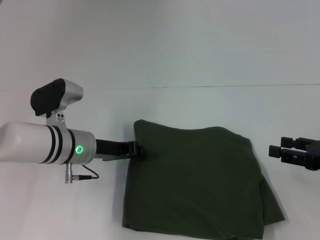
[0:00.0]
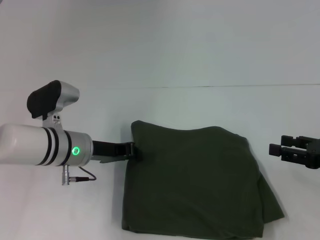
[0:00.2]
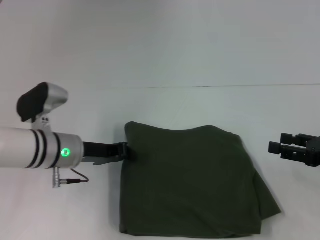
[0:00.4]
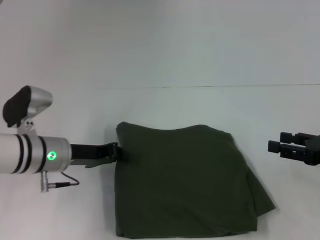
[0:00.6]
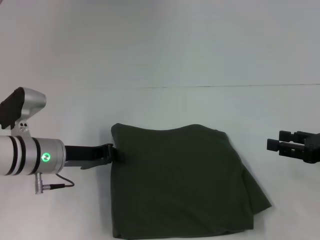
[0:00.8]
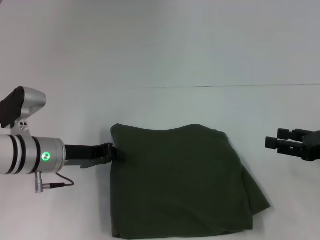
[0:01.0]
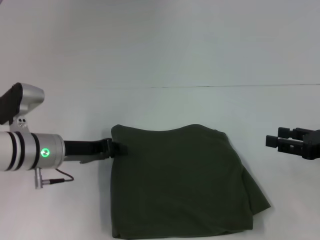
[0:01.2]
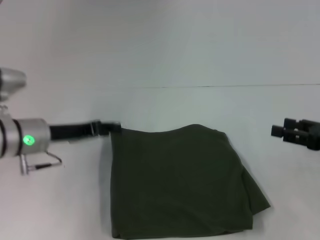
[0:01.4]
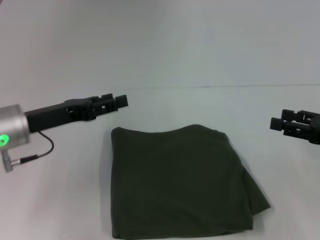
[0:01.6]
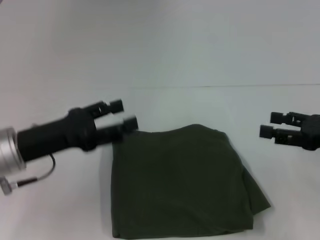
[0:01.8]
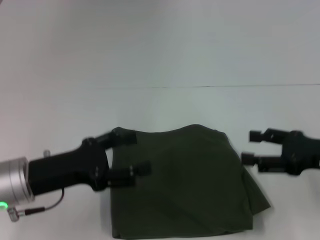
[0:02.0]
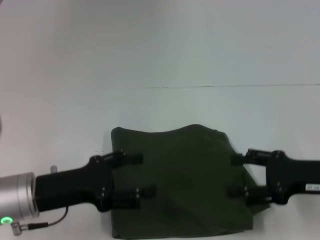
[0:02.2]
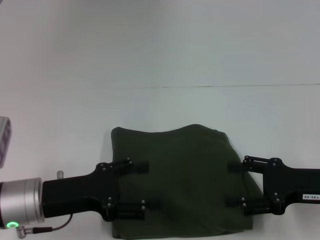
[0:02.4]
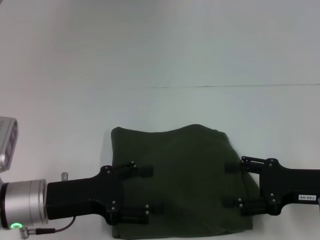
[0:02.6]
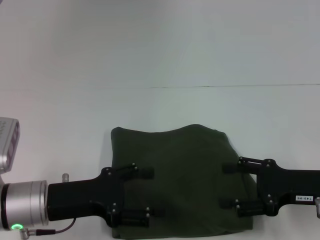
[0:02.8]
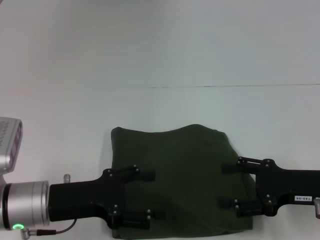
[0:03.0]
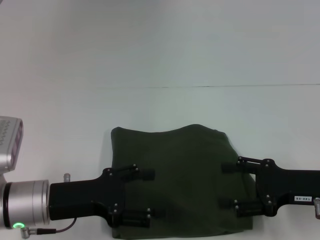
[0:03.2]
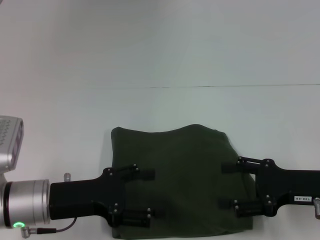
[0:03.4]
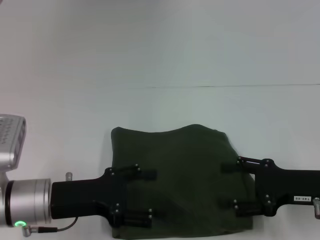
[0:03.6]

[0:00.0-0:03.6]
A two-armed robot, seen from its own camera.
0:00.0 to 0:01.8: The left gripper goes about 10 cm backward, to the left and upward.
0:01.8 to 0:03.6: The left gripper ends up roughly 5 cm from where it was; the right gripper is displaced to the left by some 5 cm.

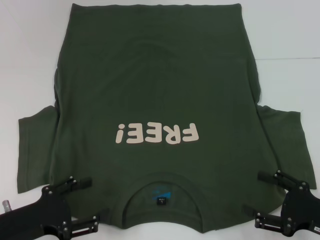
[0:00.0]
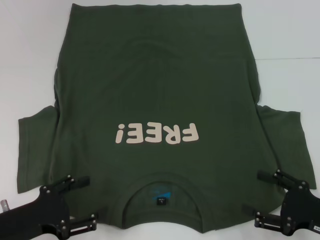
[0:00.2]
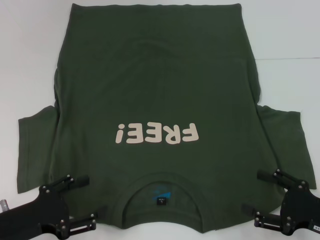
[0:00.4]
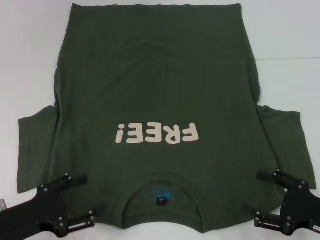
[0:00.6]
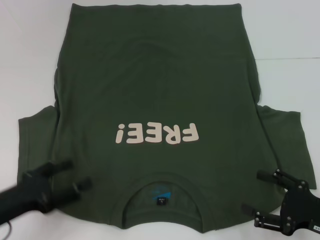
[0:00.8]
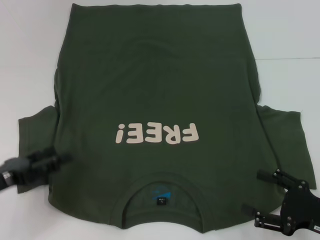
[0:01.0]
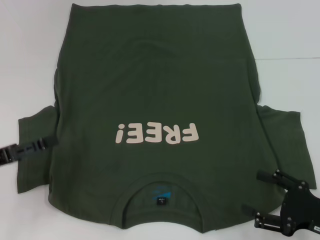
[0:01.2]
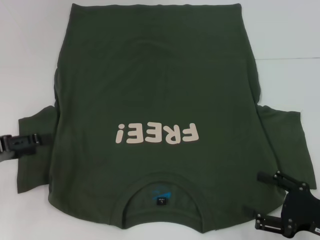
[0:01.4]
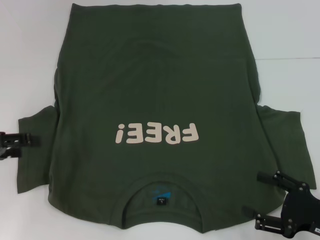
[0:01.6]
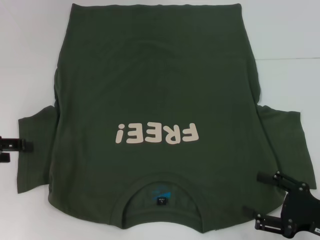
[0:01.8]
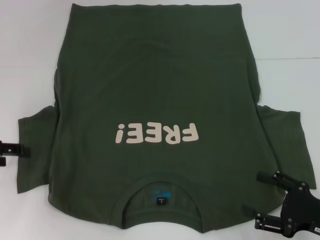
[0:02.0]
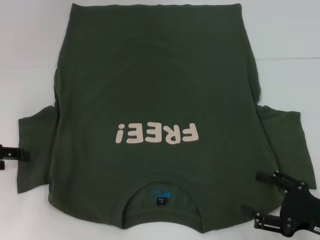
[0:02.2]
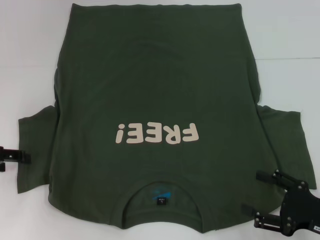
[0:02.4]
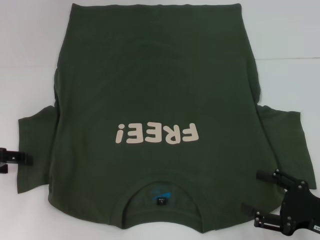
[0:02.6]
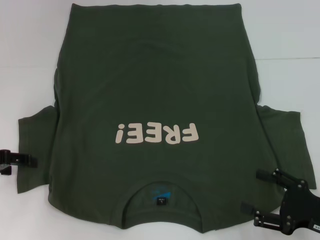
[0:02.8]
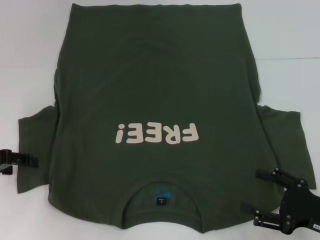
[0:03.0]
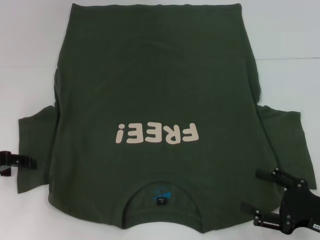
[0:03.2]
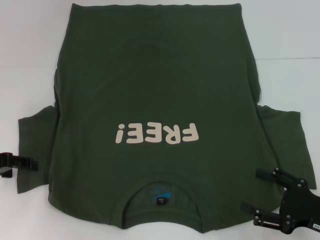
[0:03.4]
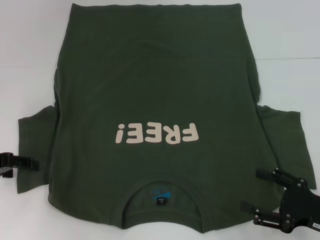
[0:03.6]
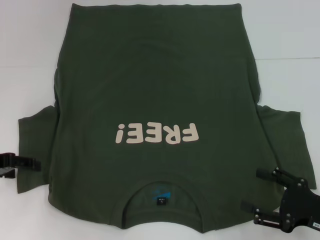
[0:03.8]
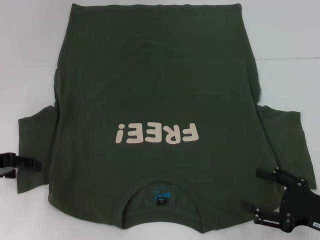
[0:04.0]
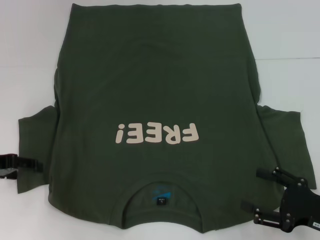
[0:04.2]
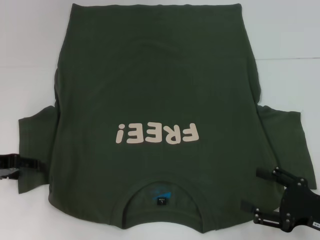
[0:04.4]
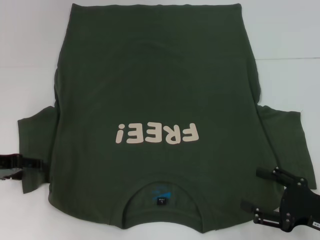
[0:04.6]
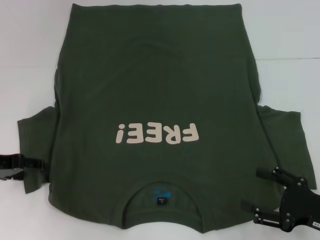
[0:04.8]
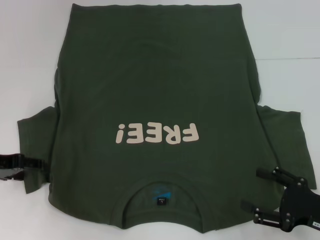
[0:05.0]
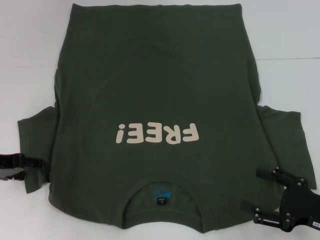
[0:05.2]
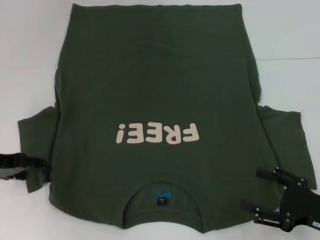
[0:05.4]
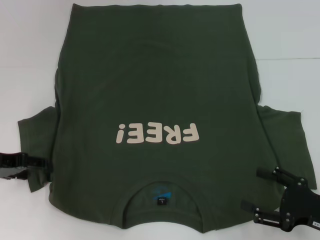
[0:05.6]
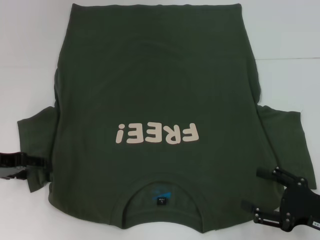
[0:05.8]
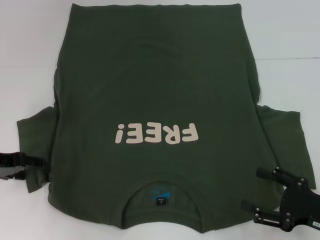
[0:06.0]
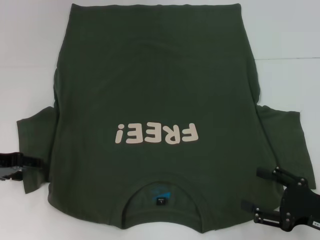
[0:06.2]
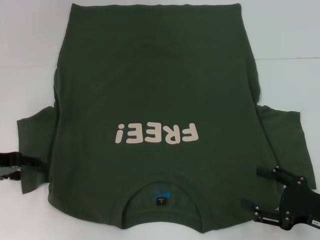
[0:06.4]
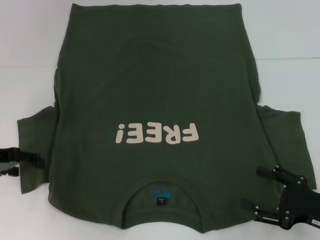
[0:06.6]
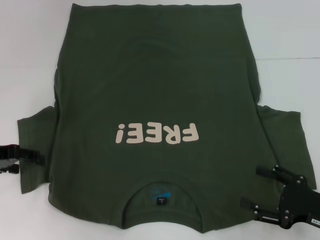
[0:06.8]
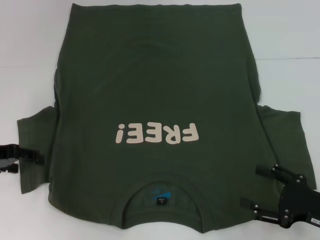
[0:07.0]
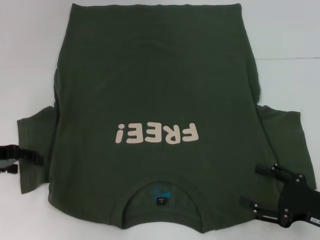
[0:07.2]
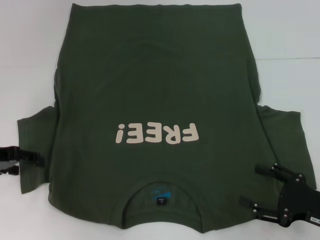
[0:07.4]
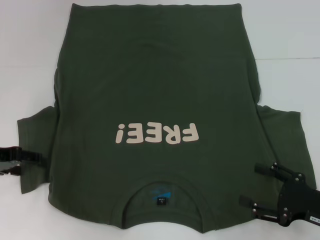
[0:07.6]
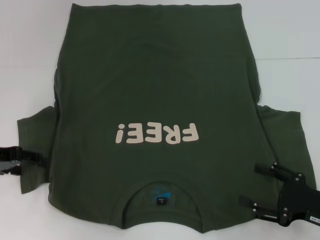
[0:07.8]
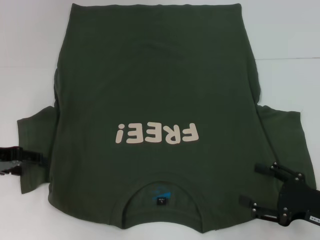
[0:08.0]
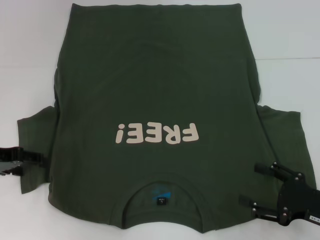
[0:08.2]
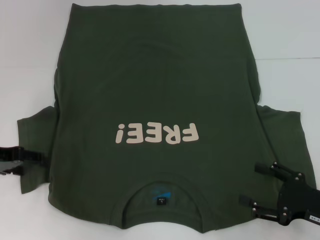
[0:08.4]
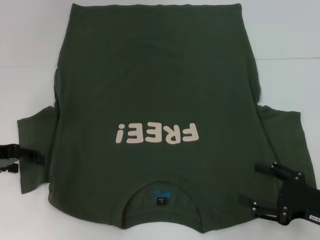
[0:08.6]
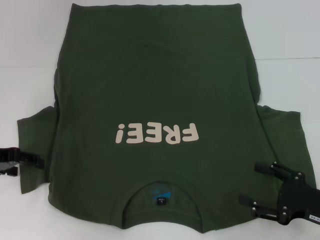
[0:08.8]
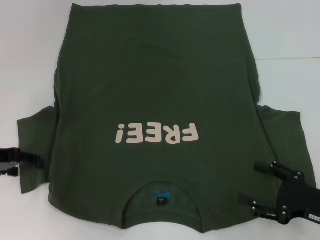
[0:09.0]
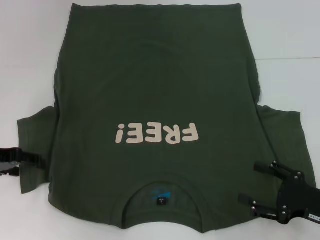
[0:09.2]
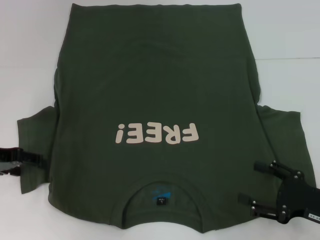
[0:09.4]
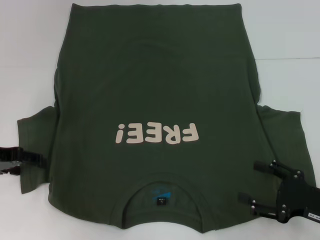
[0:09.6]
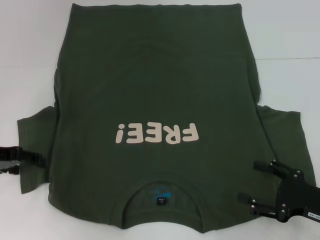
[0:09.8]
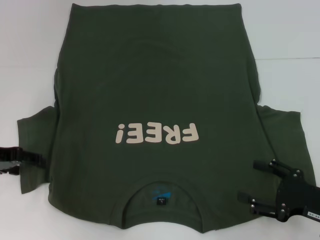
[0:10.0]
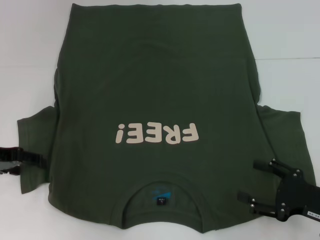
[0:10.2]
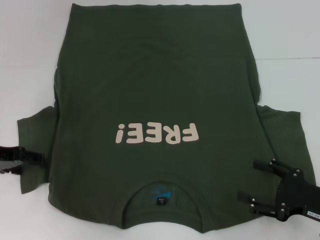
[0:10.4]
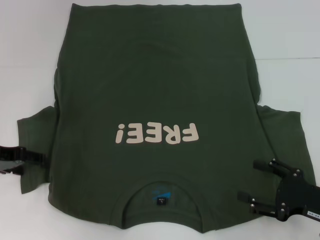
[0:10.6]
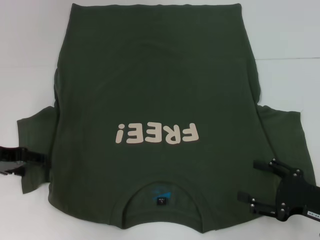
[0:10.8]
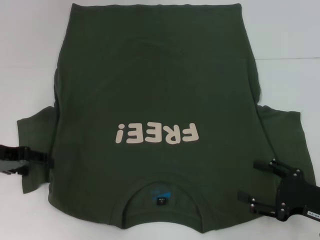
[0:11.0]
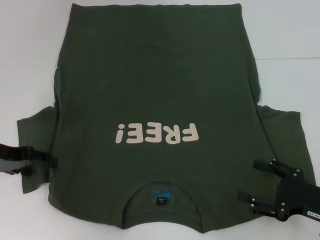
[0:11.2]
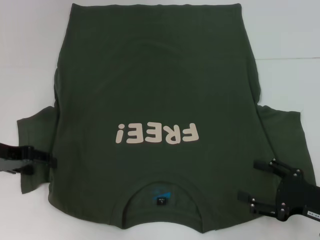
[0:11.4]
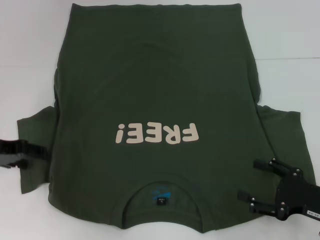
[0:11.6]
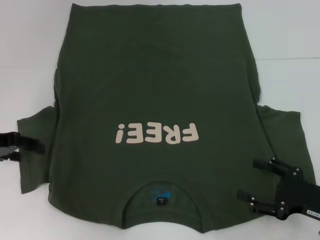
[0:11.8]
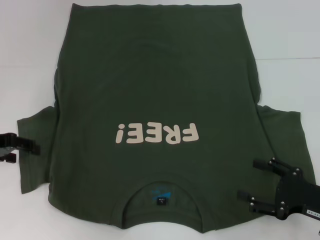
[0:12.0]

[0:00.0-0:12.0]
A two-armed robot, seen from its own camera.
0:00.0 to 0:01.6: The left gripper heads forward, upward and to the left, covering about 15 cm.
0:01.6 to 0:03.0: The grippers move only a little.
0:03.0 to 0:04.4: Both grippers stay put.
0:04.4 to 0:06.0: Both grippers stay about where they are.
0:06.0 to 0:07.6: There are only small adjustments of the grippers.
0:07.6 to 0:10.4: Neither gripper changes place.
0:10.4 to 0:12.0: The grippers move only a little.

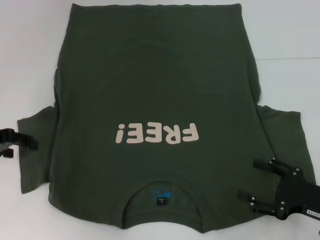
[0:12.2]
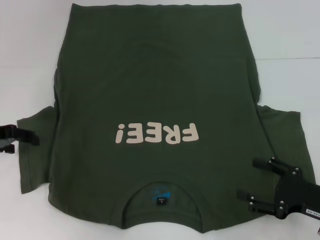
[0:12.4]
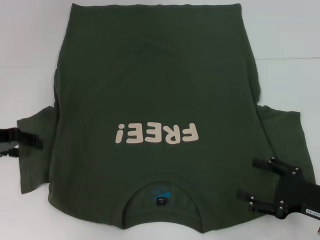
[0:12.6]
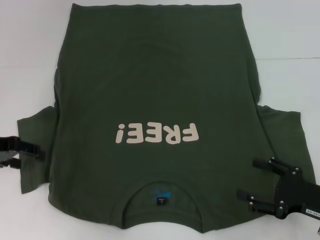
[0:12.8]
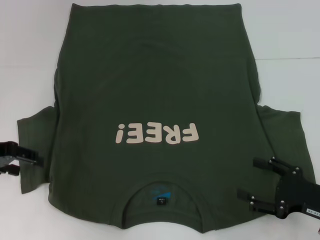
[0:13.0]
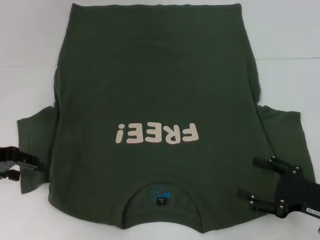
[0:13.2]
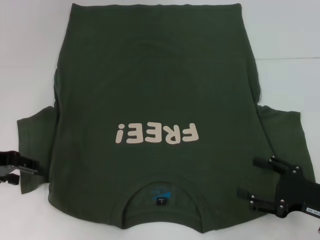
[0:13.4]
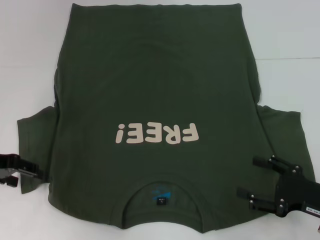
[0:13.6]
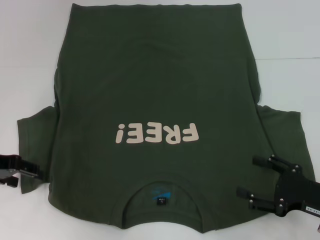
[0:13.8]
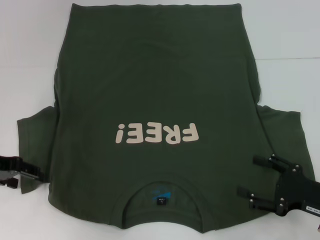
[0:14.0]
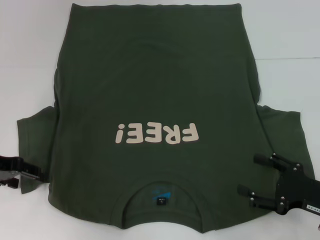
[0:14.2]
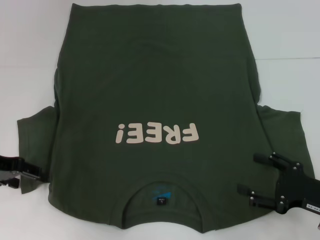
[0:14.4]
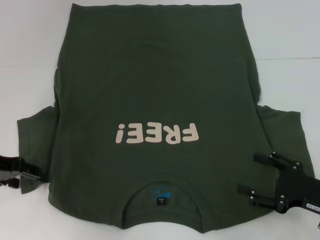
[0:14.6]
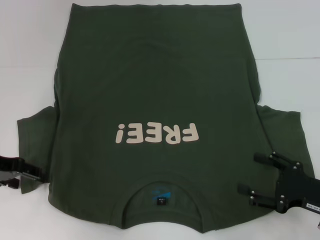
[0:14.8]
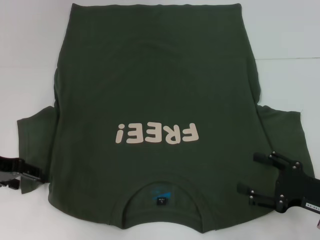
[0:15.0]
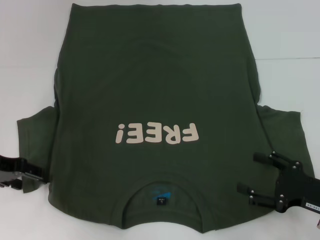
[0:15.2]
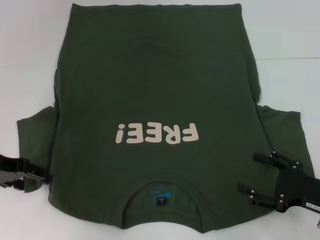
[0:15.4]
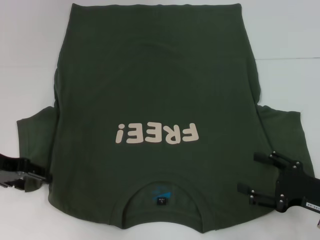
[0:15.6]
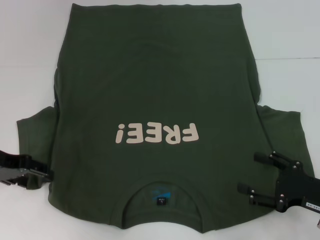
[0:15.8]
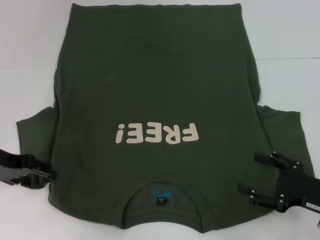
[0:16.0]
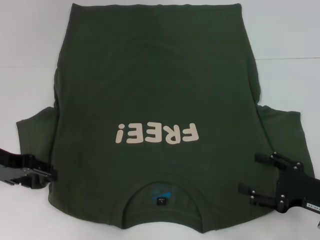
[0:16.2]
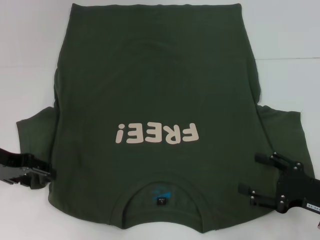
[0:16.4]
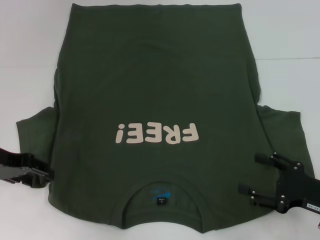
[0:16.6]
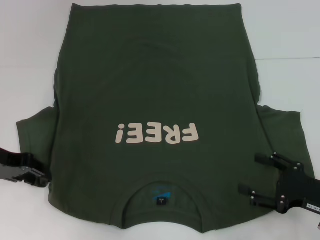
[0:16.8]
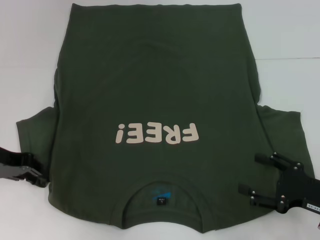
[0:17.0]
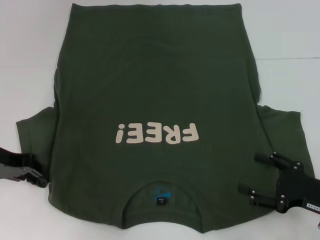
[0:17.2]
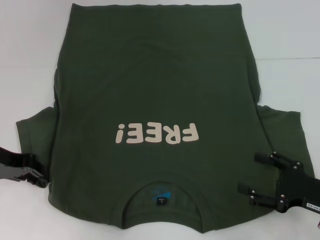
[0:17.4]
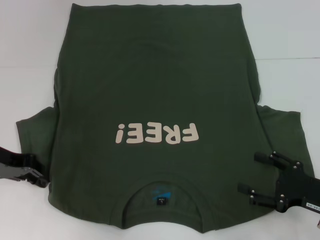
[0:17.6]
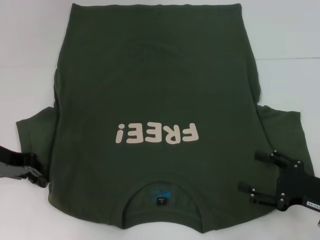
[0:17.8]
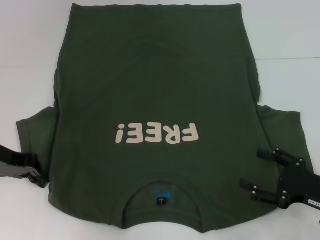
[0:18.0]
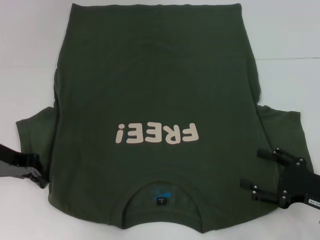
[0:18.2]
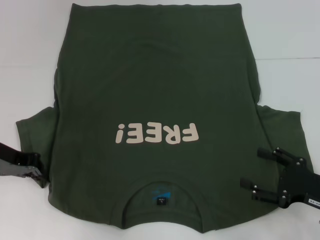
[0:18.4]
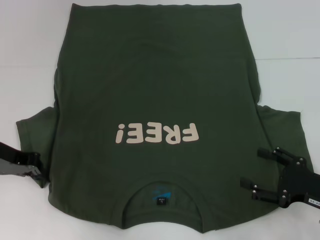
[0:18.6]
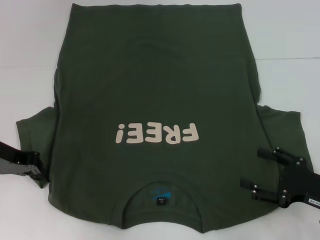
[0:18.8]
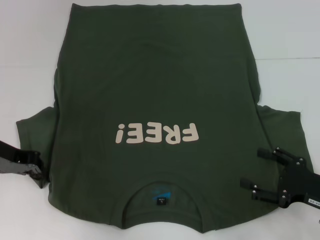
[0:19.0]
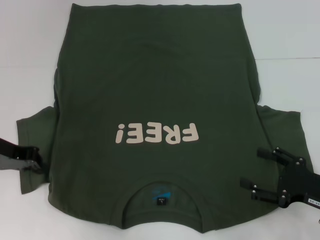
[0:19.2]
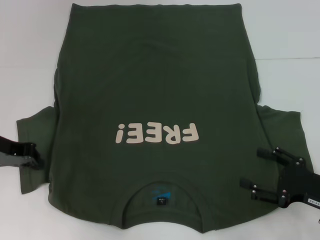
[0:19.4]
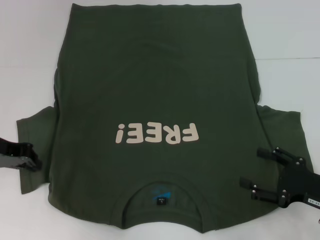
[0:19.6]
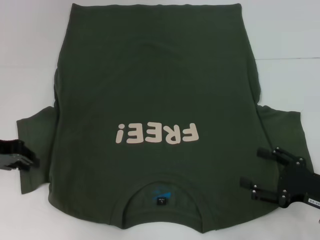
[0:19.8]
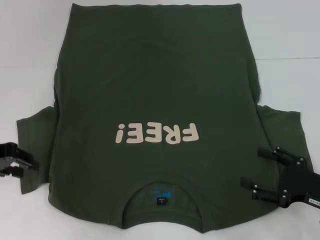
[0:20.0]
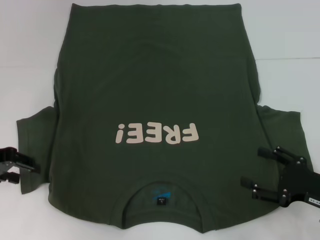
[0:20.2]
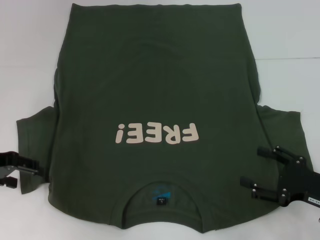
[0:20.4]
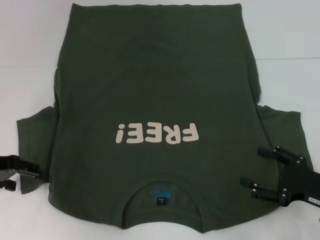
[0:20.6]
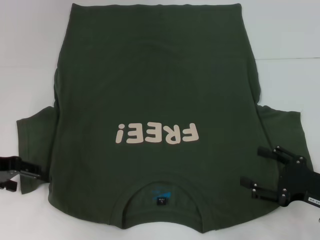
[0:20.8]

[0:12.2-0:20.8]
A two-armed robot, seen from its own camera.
0:12.2 to 0:13.6: The grippers stay close to where they were, moving slightly.
0:13.6 to 0:15.0: The two grippers keep their place.
0:15.0 to 0:16.6: Both grippers stay put.
0:16.6 to 0:18.0: The left gripper closes its fingers.
0:18.0 to 0:19.4: Both grippers stay put.
0:19.4 to 0:20.8: The left gripper opens.
